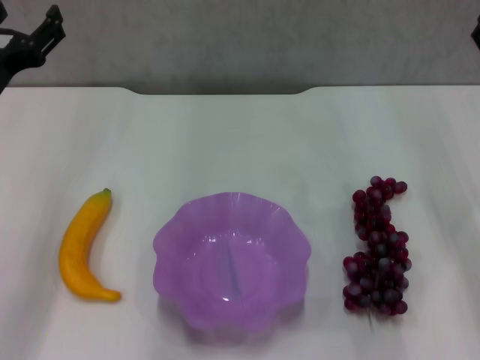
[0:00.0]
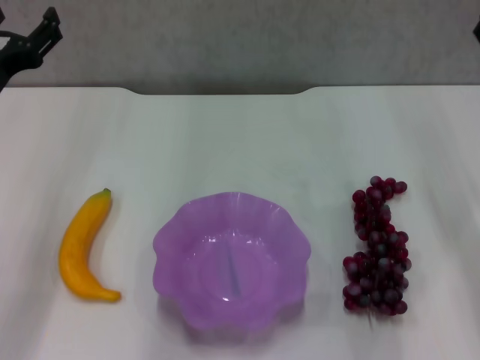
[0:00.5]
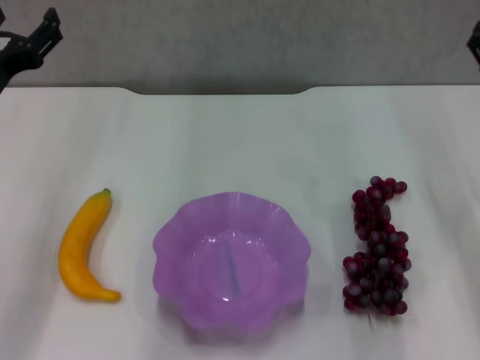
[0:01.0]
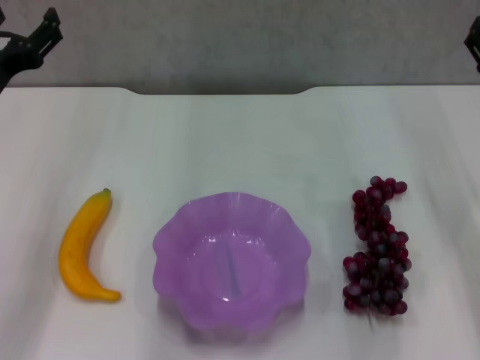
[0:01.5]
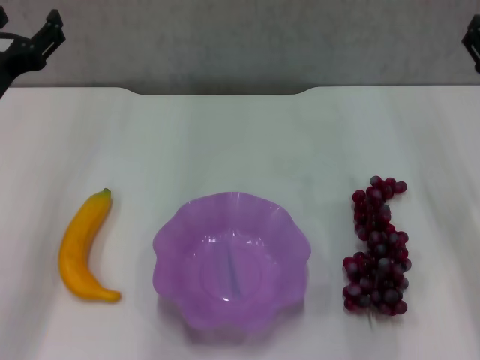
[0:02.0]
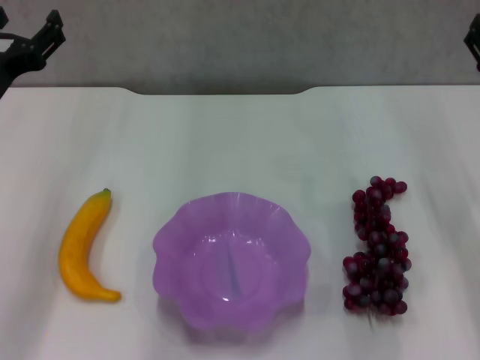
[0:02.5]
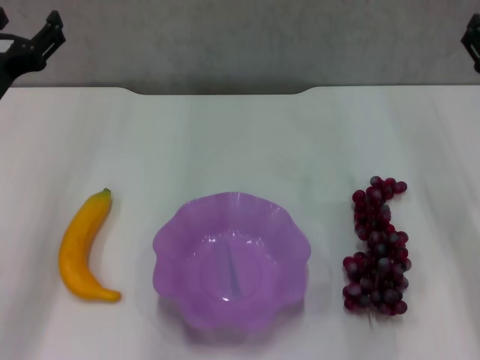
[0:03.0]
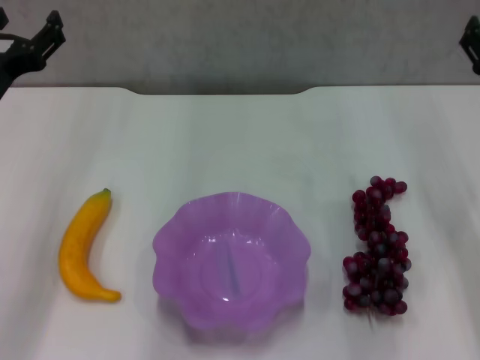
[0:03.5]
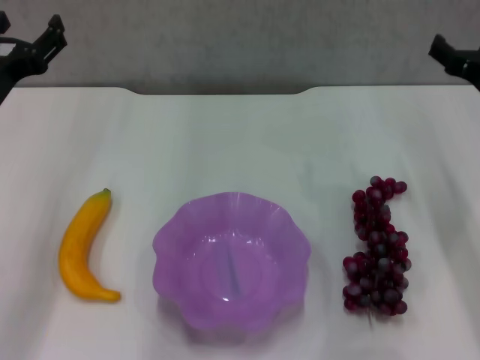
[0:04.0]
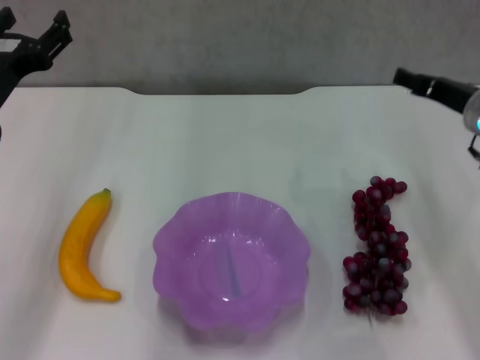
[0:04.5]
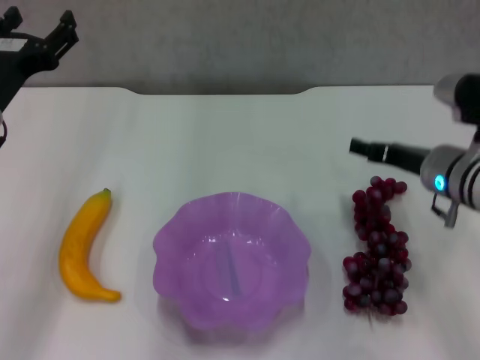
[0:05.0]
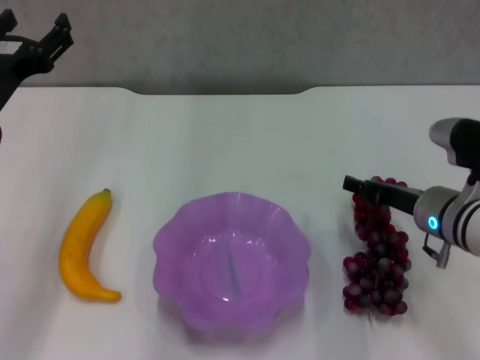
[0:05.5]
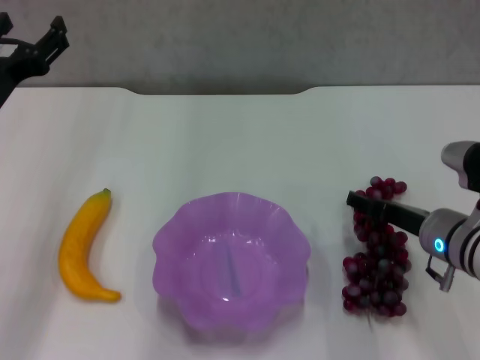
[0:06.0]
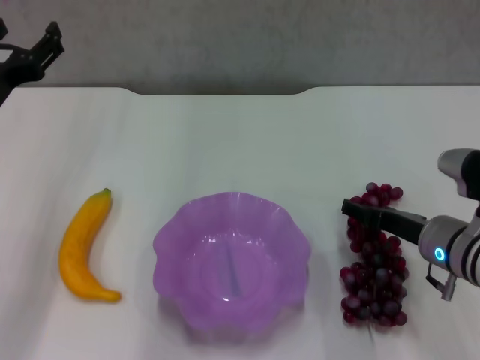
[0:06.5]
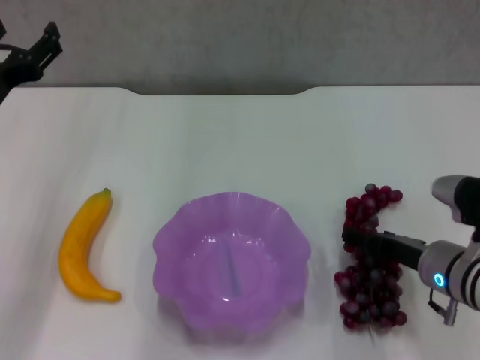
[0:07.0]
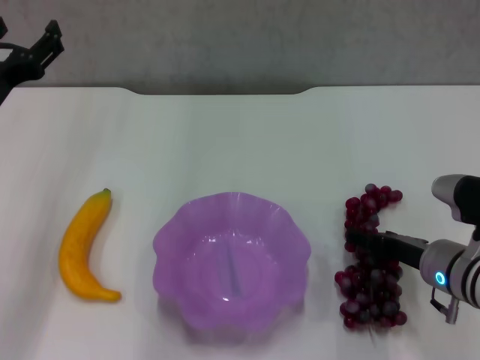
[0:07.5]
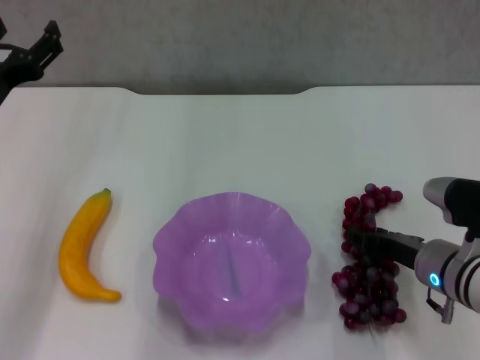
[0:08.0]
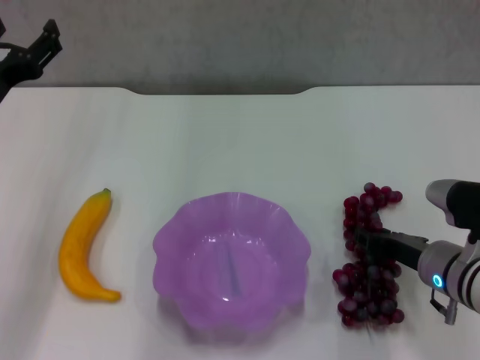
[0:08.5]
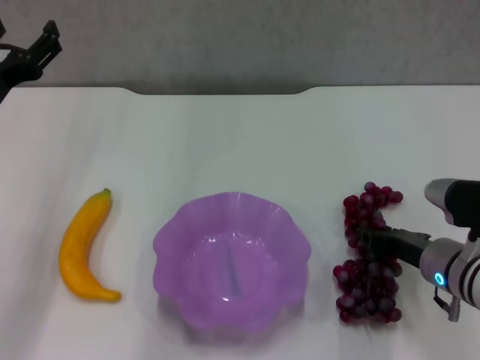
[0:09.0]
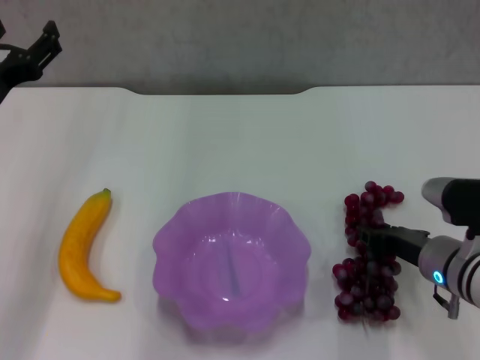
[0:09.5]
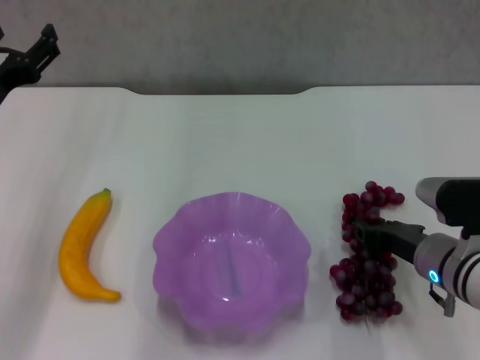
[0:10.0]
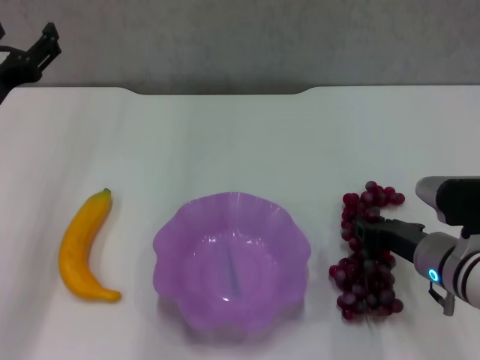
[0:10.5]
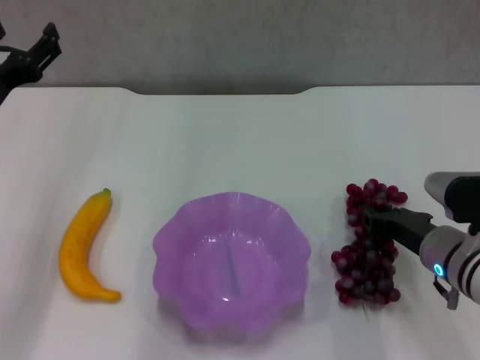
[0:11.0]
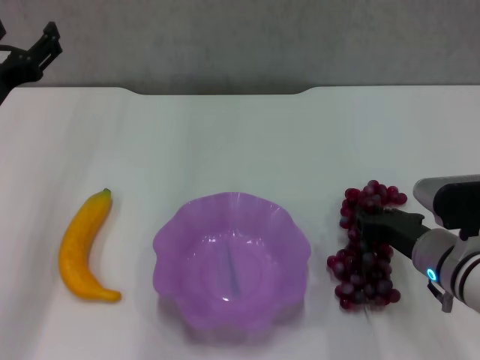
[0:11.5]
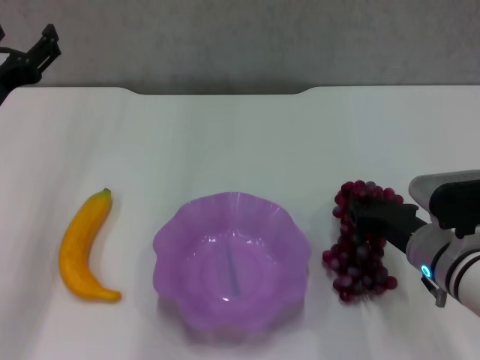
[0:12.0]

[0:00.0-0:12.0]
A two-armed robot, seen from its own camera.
Step, 0:00.0 to 0:10.0: Grasp the grape with right gripper.
0:00.0 to 0:02.0: There are only small adjustments of the grippers.
0:02.0 to 0:04.0: There are only small adjustments of the grippers.
0:04.0 to 0:06.0: The right gripper goes about 15 cm downward, backward and to the left.
0:06.0 to 0:08.0: The grippers stay close to where they were, moving slightly.
0:08.0 to 0:10.0: The right gripper closes.
0:10.0 to 0:12.0: There are only small adjustments of the grippers.

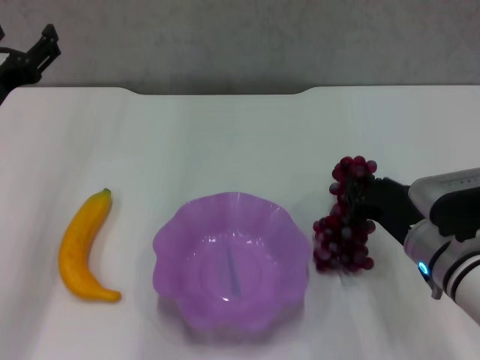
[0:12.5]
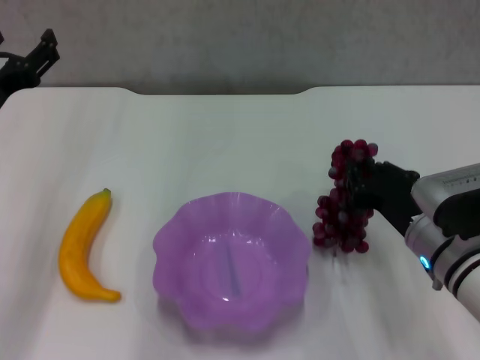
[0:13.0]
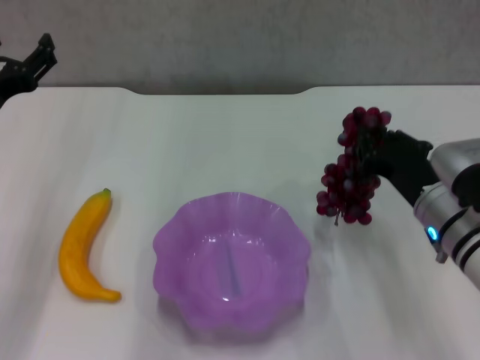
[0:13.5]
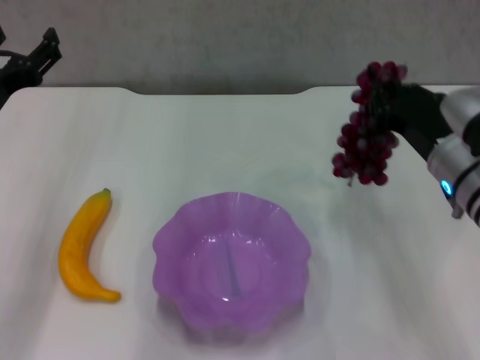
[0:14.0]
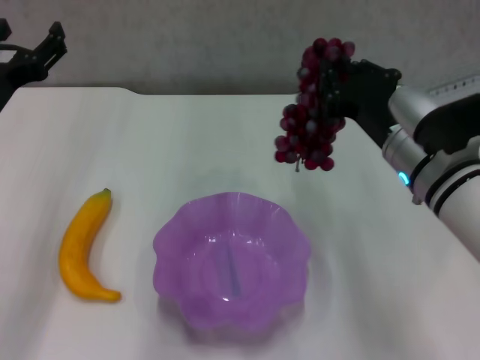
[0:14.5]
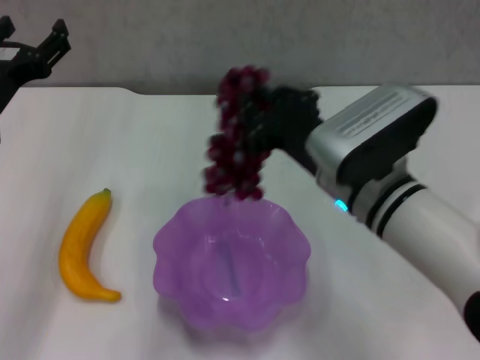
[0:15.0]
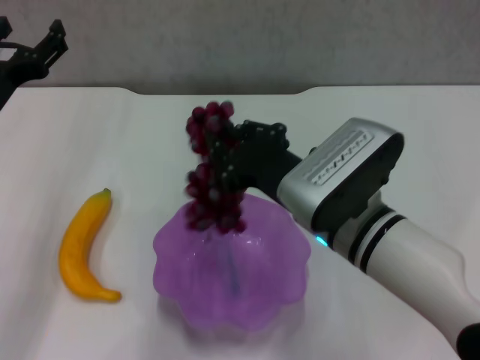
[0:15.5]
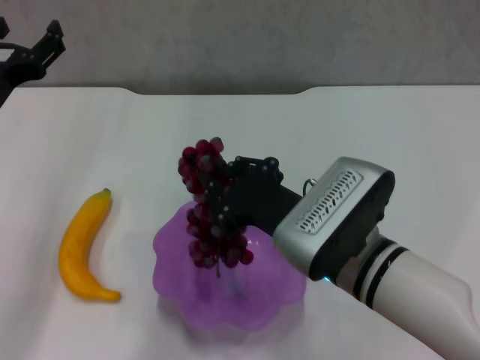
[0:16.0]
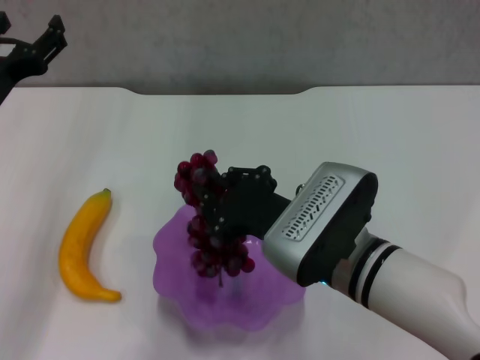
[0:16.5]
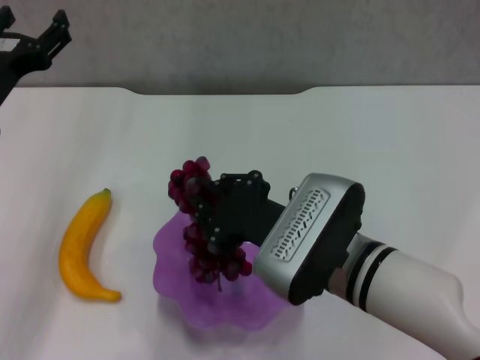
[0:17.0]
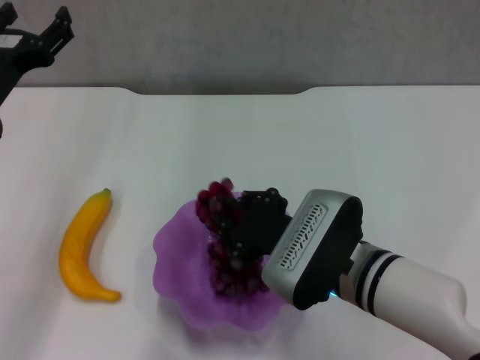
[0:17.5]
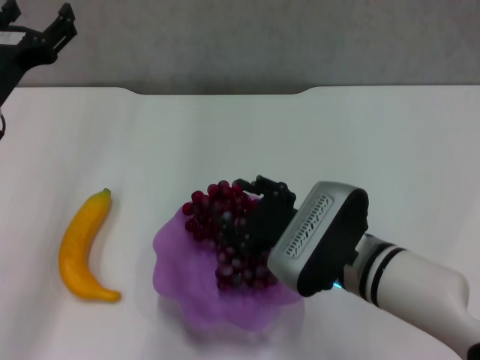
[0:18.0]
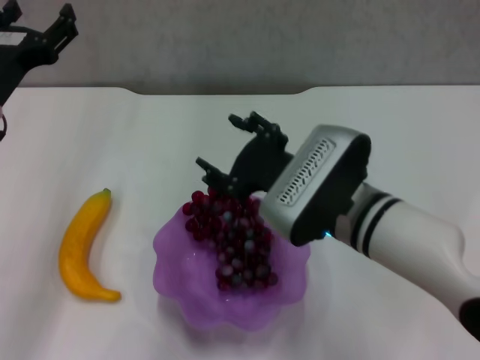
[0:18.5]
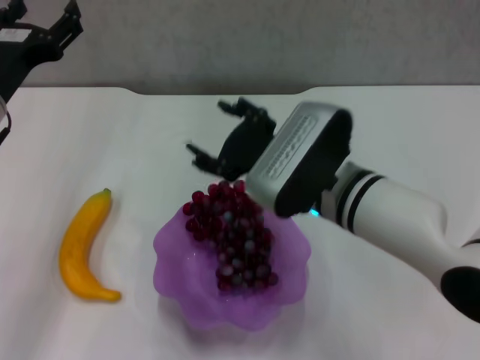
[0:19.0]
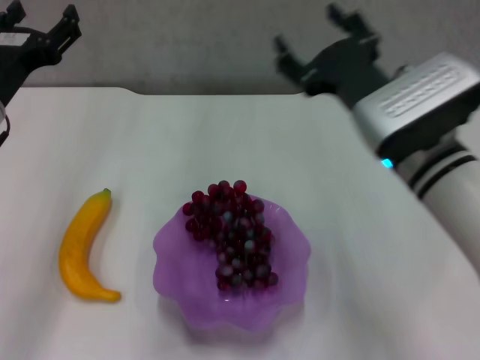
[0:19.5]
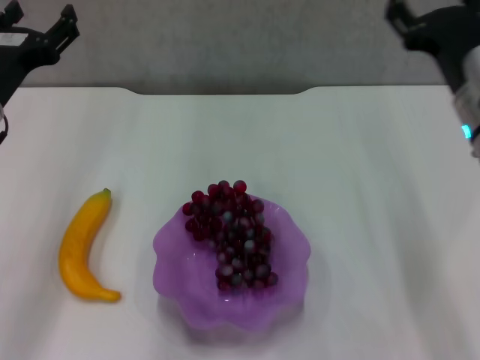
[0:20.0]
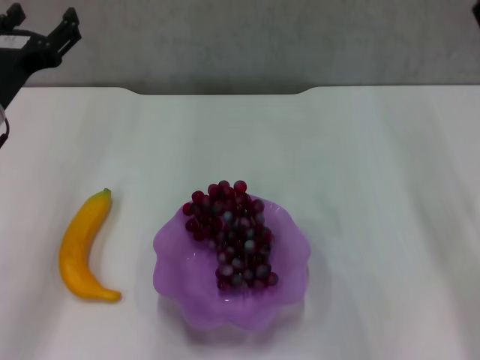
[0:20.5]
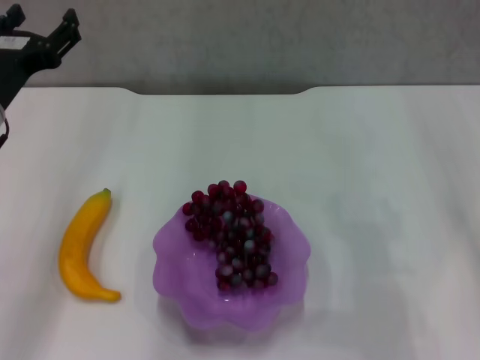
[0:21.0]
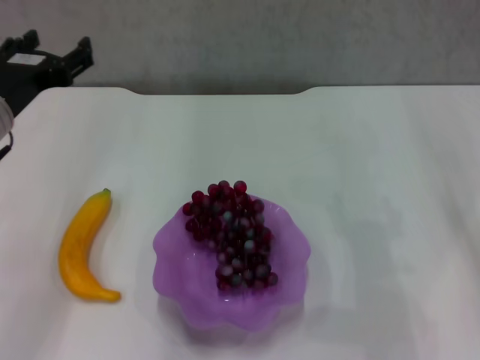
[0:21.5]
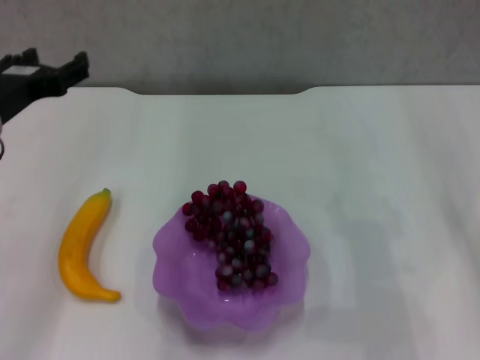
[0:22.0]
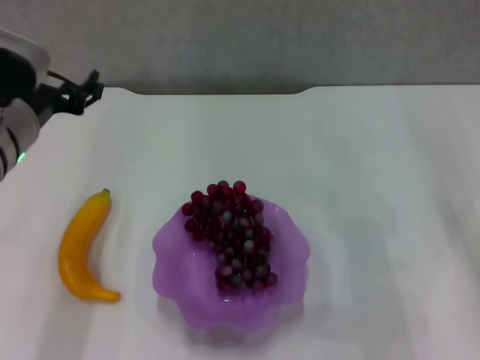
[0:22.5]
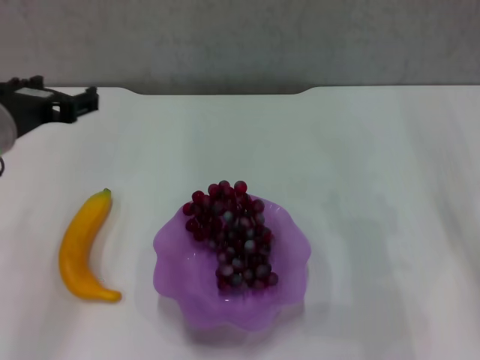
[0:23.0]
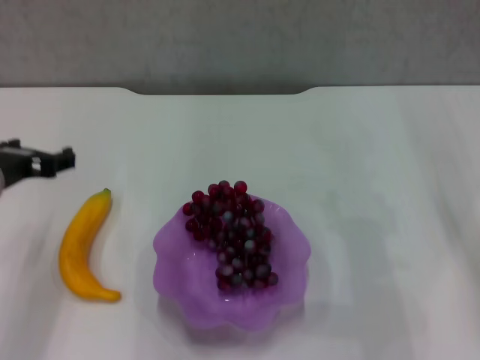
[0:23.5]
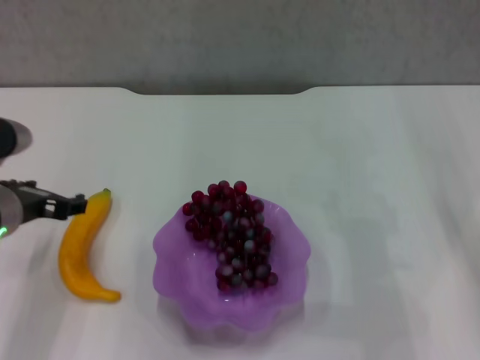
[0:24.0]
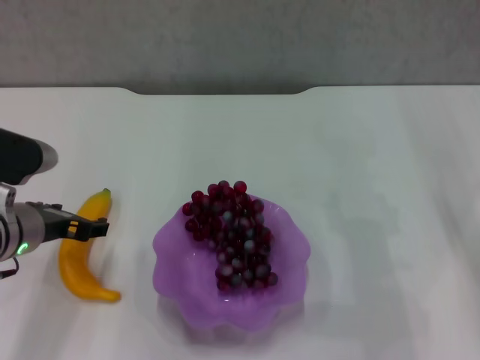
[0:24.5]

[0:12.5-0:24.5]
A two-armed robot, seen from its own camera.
Step, 0:12.5 to 0:18.0: Place the grape in the purple plate with right gripper.
0:12.5 to 0:14.5: The right gripper goes some 10 cm upward.
0:14.5 to 0:16.5: The right gripper is displaced to the left and backward by roughly 10 cm.
0:16.5 to 0:18.5: The right gripper opens.
0:18.5 to 0:20.5: The right gripper goes about 15 cm to the right.
0:20.5 to 0:22.5: The right gripper shifts by some 5 cm. The left gripper changes place by approximately 5 cm.
0:22.5 to 0:24.5: The left gripper travels downward by about 10 cm.

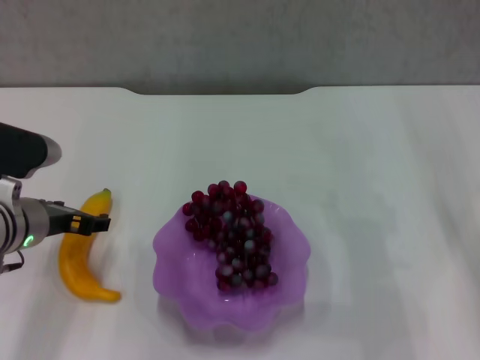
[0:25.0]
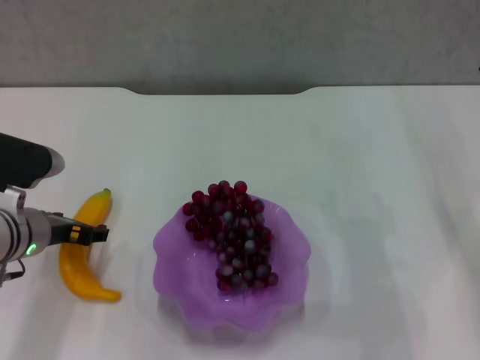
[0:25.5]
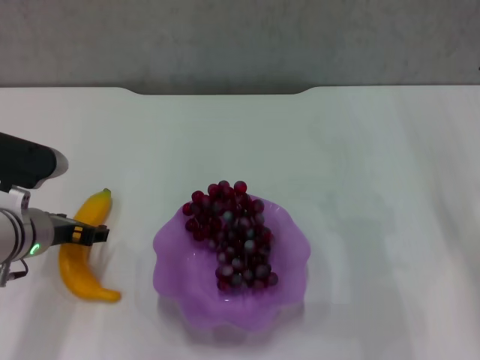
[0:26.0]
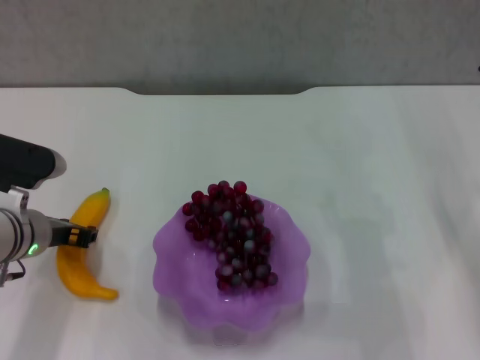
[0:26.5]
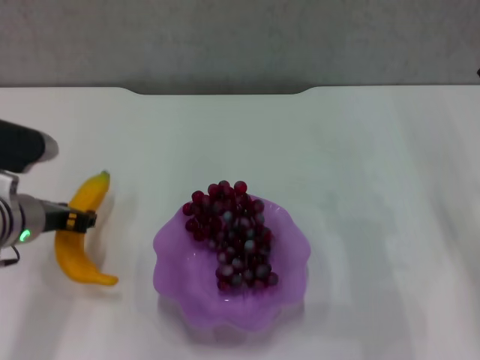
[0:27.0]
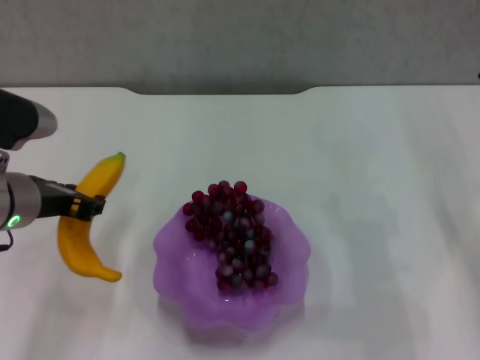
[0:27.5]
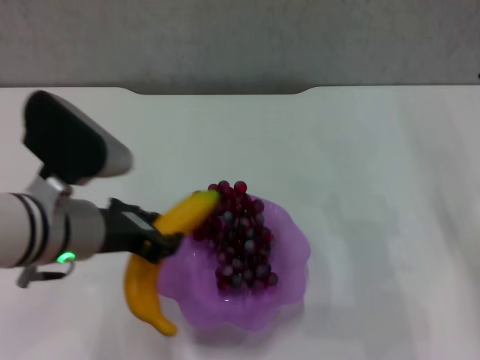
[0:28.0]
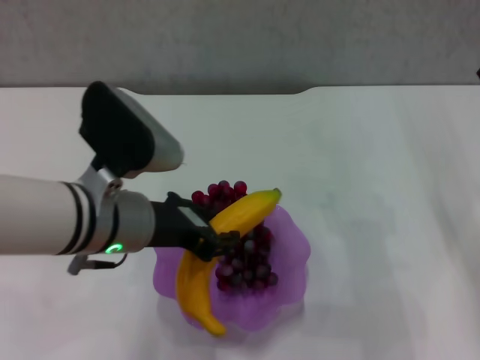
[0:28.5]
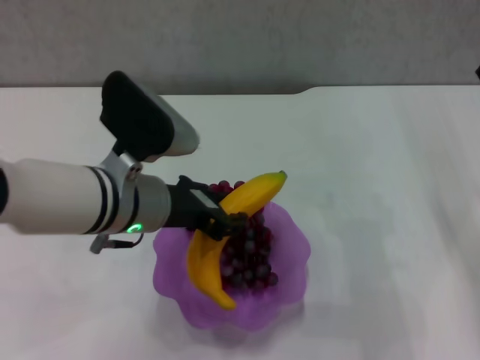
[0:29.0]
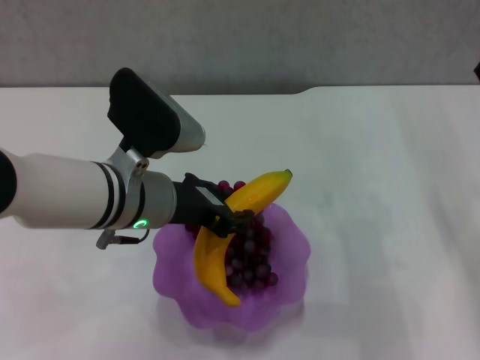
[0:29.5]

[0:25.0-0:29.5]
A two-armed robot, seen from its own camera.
0:25.0 to 0:27.0: The left gripper closes.
0:27.0 to 0:29.5: The left gripper travels to the right and upward by some 15 cm.
